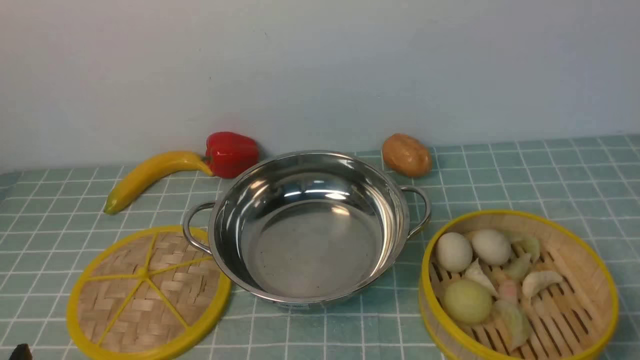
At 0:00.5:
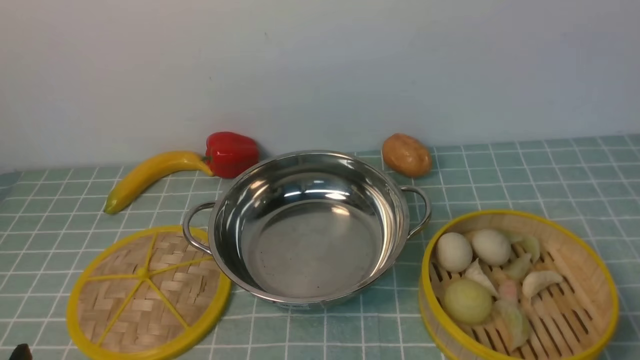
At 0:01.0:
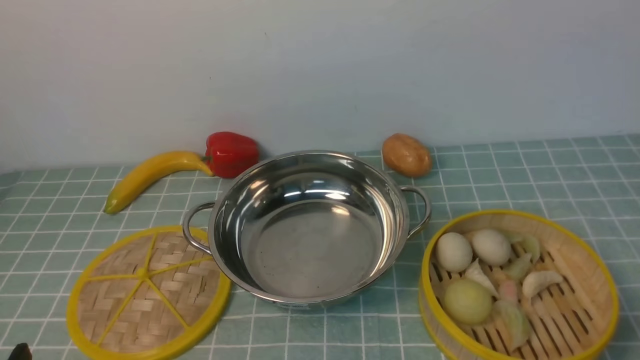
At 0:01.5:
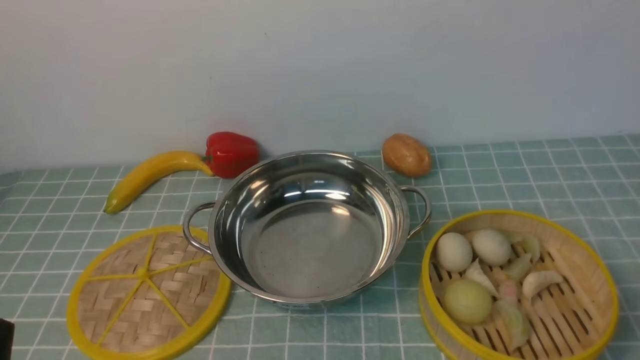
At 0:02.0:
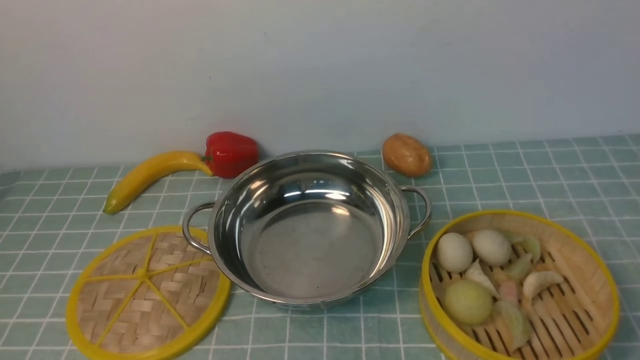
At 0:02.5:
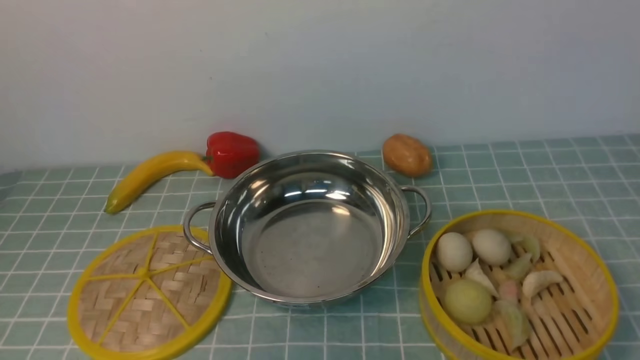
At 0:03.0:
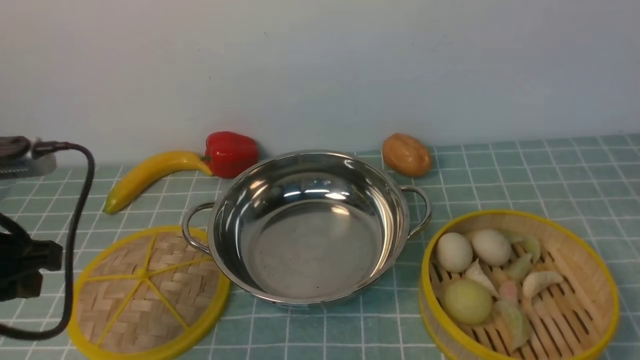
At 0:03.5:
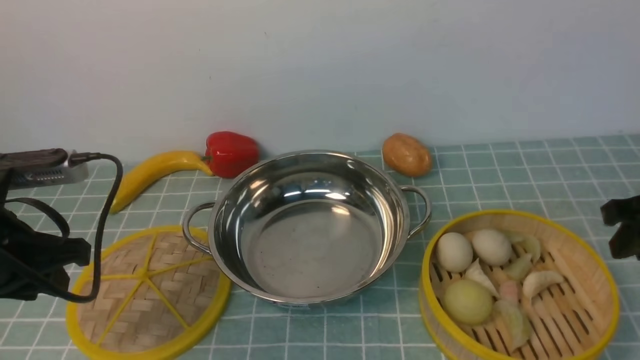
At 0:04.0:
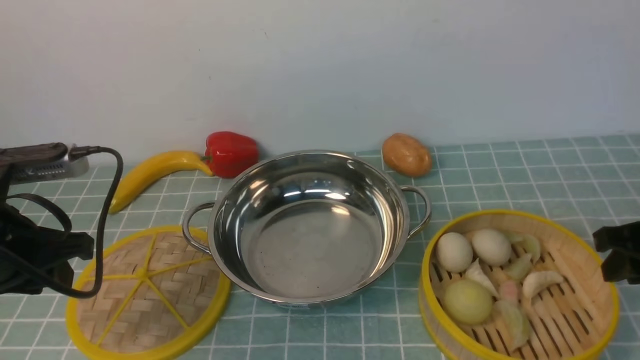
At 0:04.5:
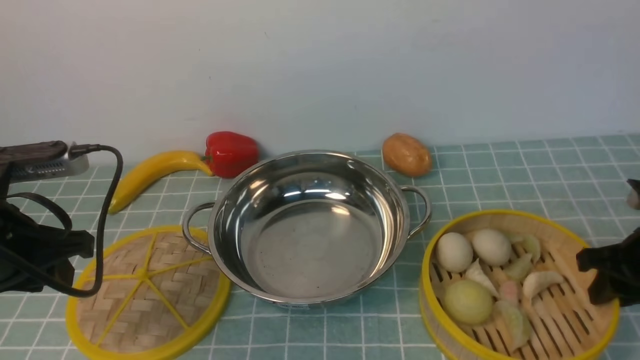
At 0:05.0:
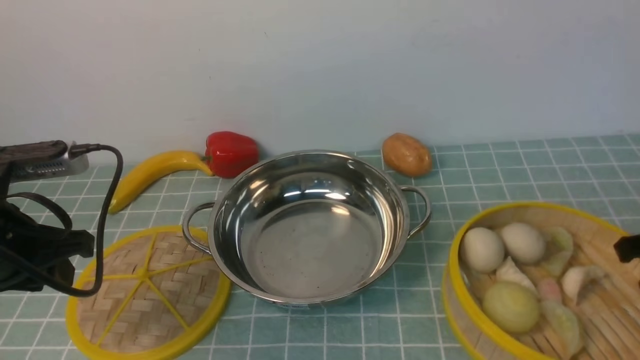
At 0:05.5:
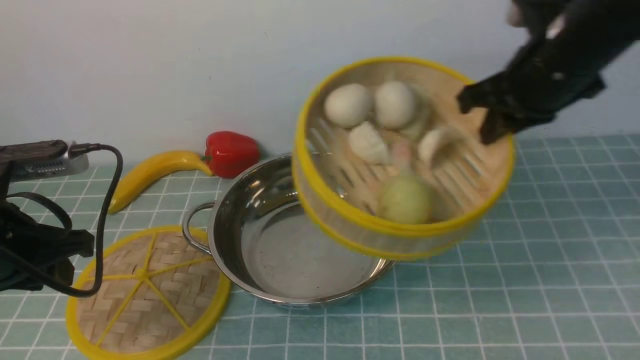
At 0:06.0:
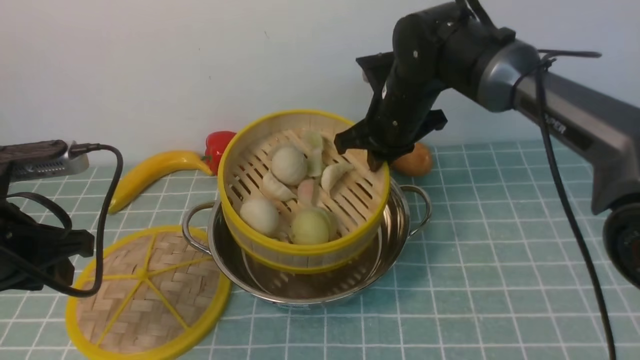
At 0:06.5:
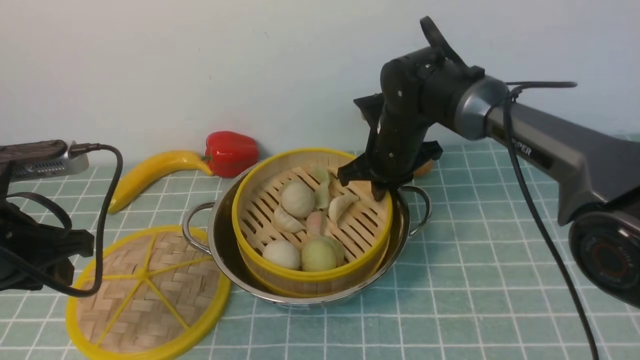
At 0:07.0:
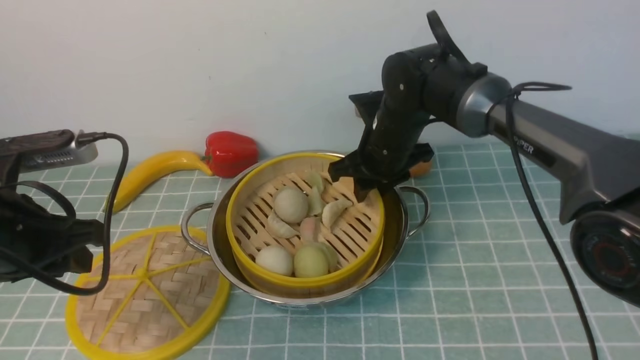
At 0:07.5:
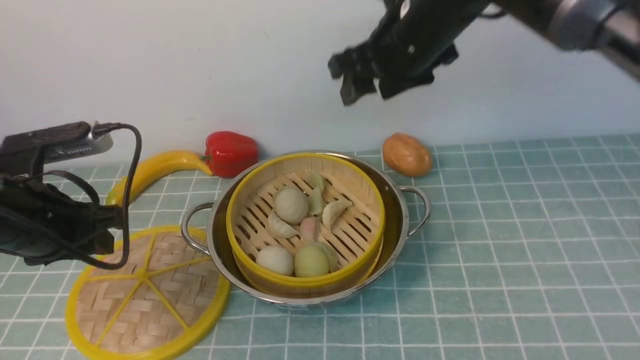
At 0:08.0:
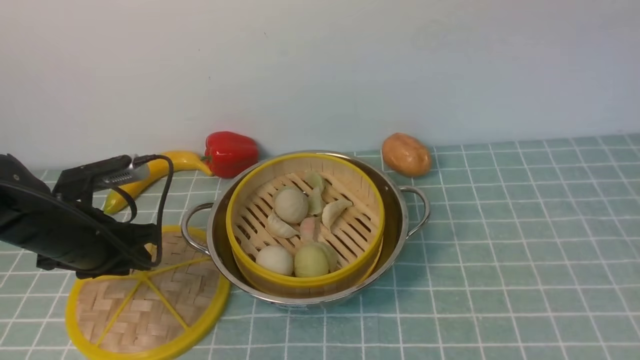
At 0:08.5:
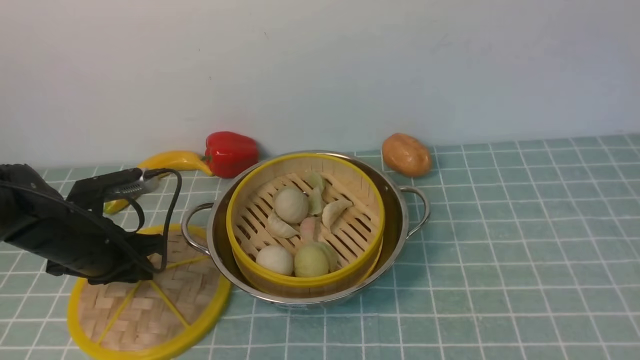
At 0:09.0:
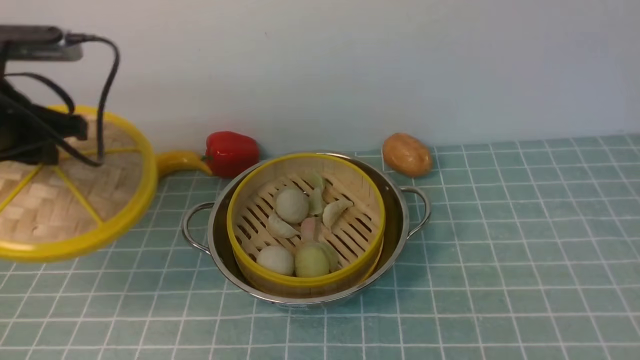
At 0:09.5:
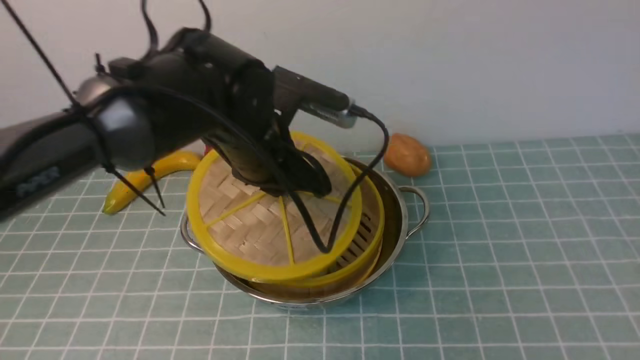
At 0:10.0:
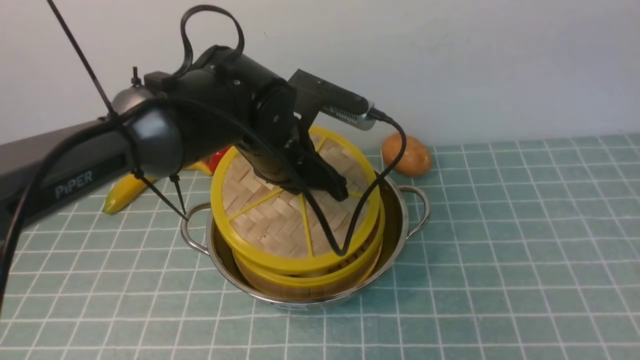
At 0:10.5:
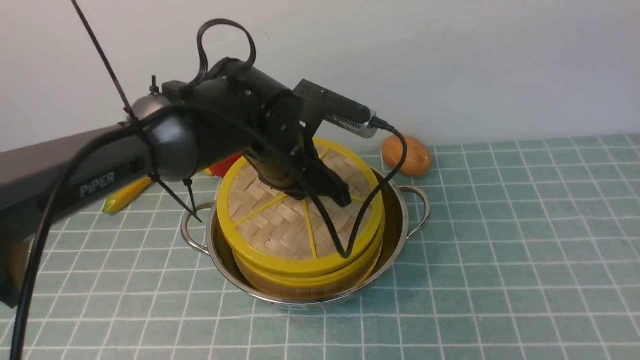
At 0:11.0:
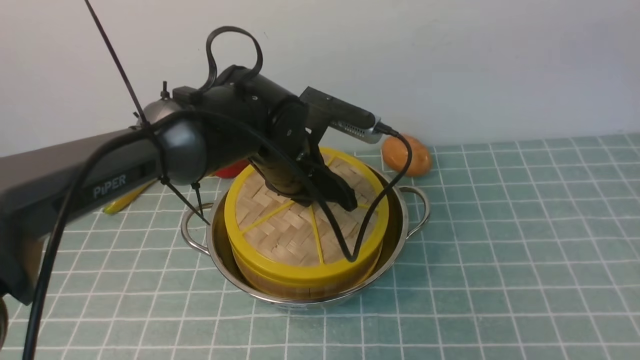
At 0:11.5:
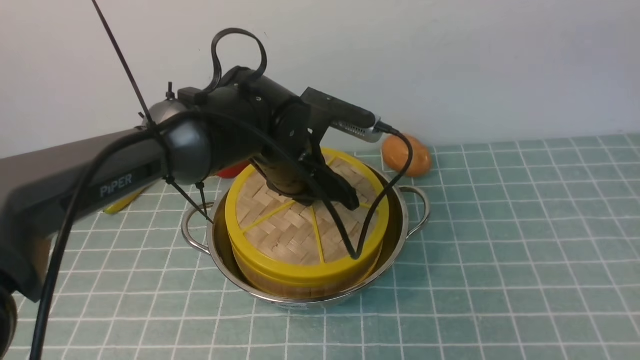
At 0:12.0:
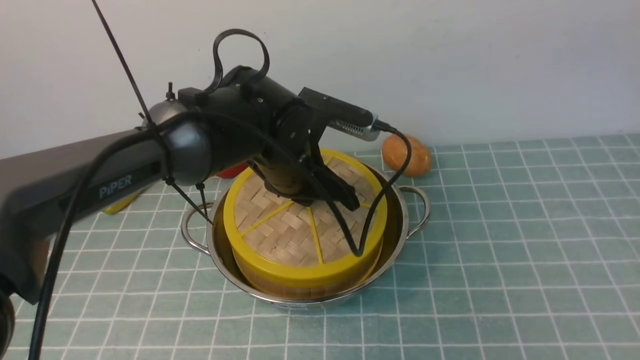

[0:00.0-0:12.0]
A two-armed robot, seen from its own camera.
Task of the whole recording: place the steamer in the pot on the blue tablecloth, and put the lid on the steamer.
Step, 0:00.0 to 0:05.0: use the right arm to lift the steamer closest to it.
Step, 0:05.5 to 0:07.0: use the right arm to put the steamer into the iron steamer pot in the middle.
Step, 0:07.5 to 0:08.5: use the left arm to lift the lid of the steamer.
0:02.0 to 0:04.0: Both grippers move forward, some 20 cm.
0:04.0 to 0:06.0: The right gripper moves to the left and forward, about 30 cm, and closes up.
0:06.0 to 0:08.0: The right gripper goes about 40 cm upward and backward, and opens its fingers. Meanwhile the left gripper moves downward and forward, some 10 cm.
0:08.0 to 0:10.0: The right gripper travels backward by approximately 5 cm; the left gripper is displaced to the right by roughly 20 cm.
0:10.0 to 0:12.0: There are only small adjustments of the grippers.

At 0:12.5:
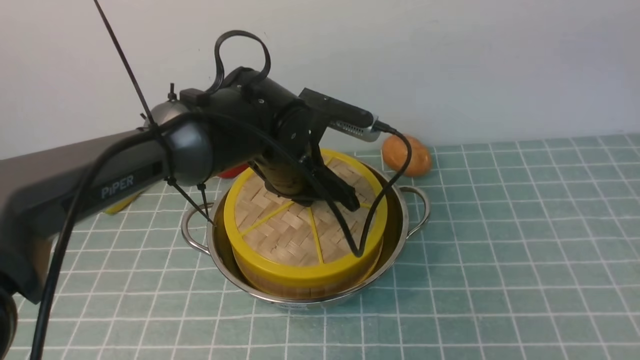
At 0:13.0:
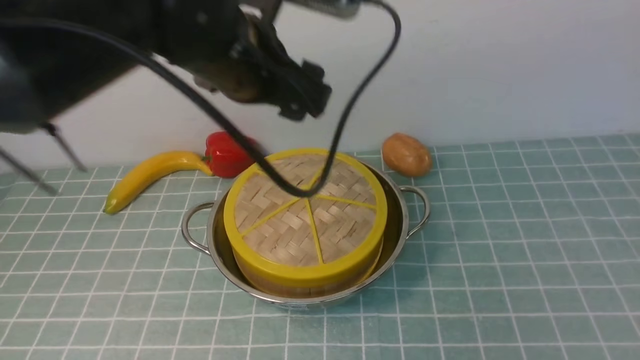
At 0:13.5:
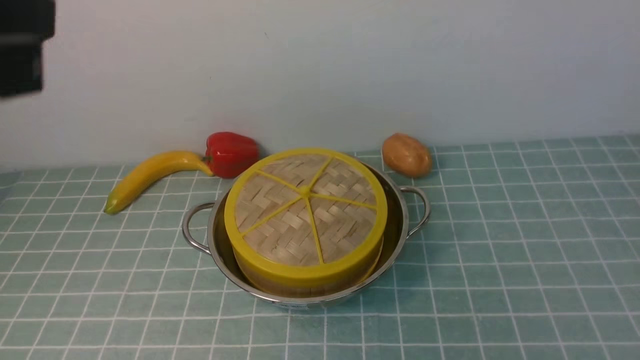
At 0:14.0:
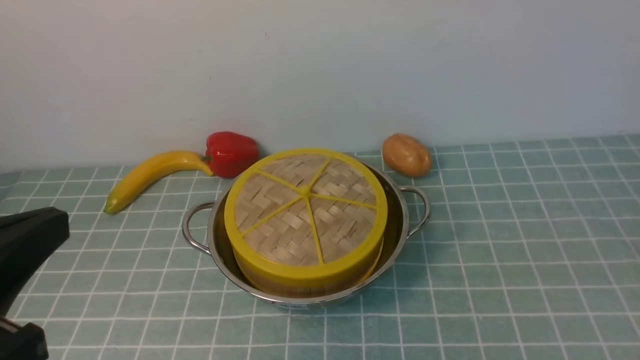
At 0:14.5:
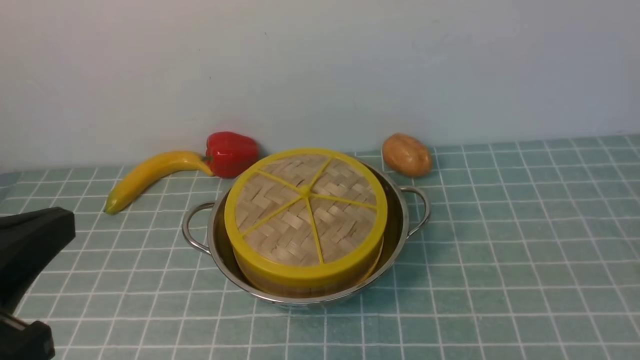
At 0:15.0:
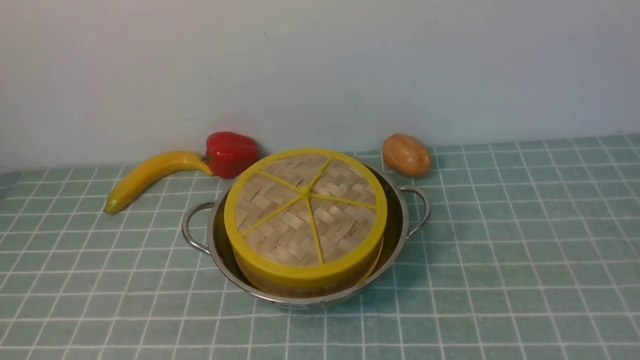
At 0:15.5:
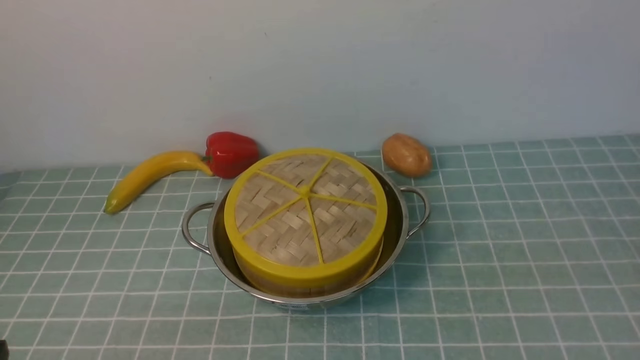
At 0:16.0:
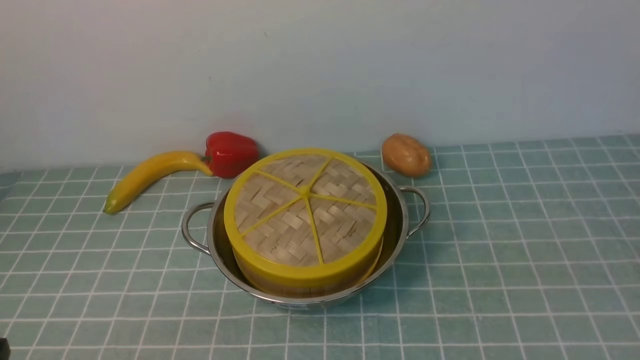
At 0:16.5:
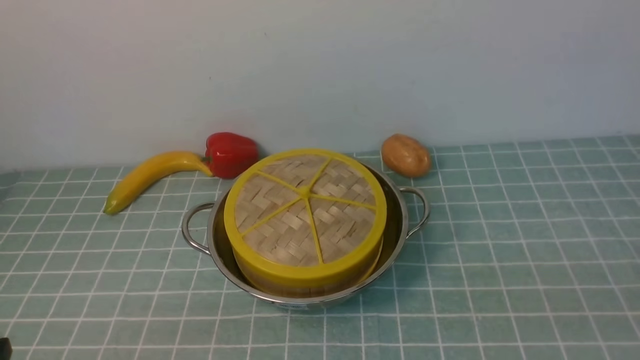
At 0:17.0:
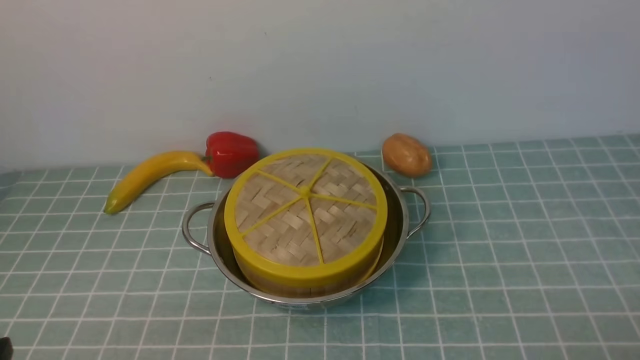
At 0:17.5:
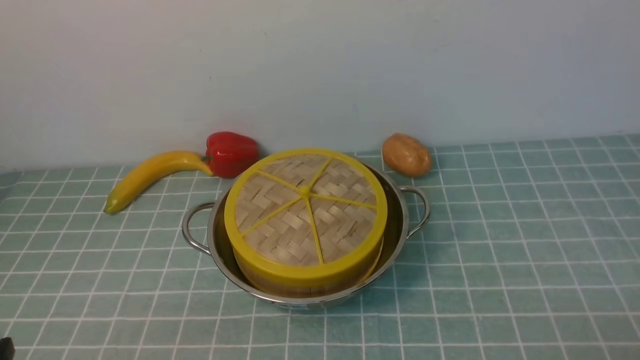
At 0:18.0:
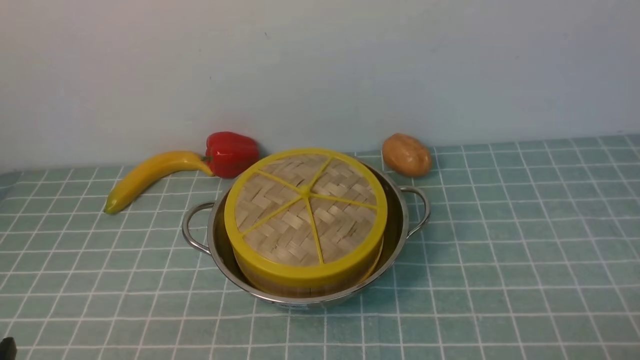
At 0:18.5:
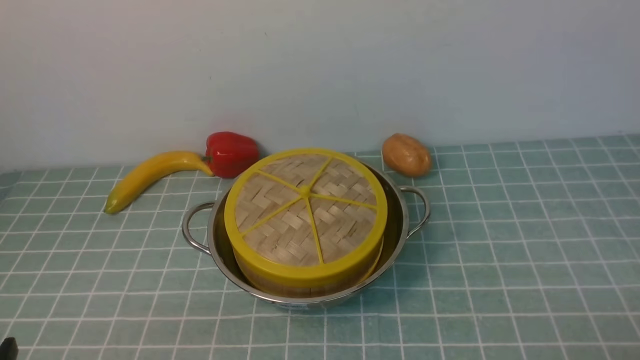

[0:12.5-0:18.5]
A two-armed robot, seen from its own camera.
Task of the whole recording: place the steamer in the pot on the blue tablecloth, and put the lid on the steamer.
0:12.5 to 0:14.5: The right gripper shifts some 25 cm downward and backward, and closes up. The left gripper moves backward, to the left and upward, about 35 cm, and closes up.
0:14.5 to 0:16.5: The left gripper travels downward by roughly 15 cm.

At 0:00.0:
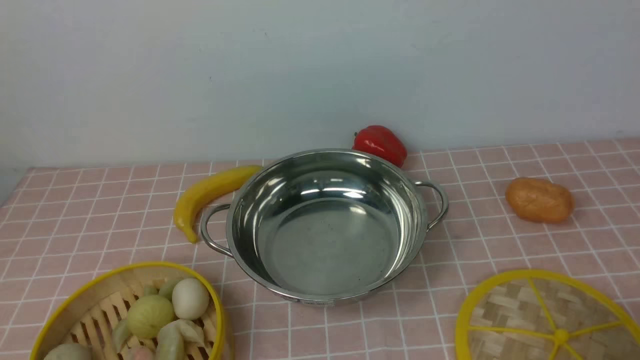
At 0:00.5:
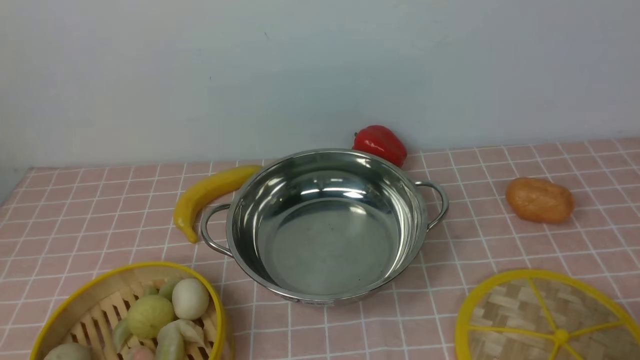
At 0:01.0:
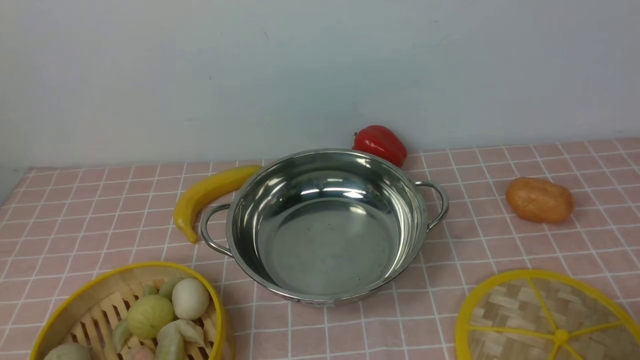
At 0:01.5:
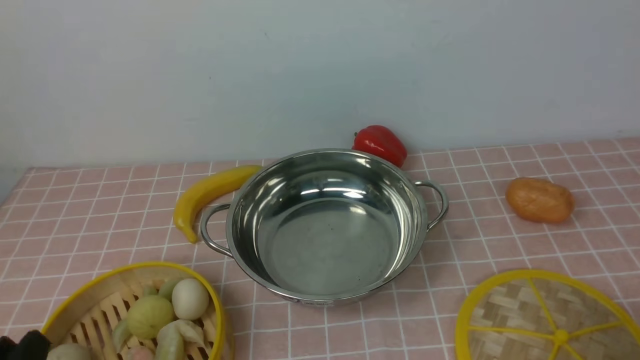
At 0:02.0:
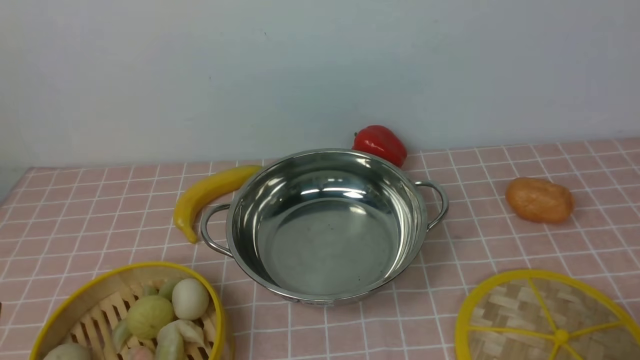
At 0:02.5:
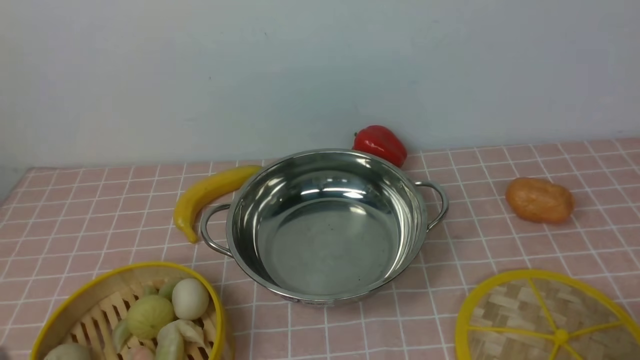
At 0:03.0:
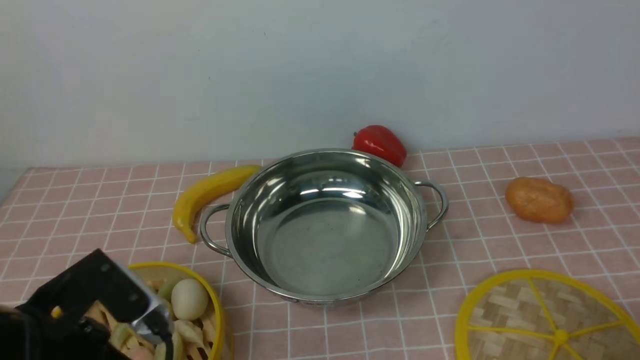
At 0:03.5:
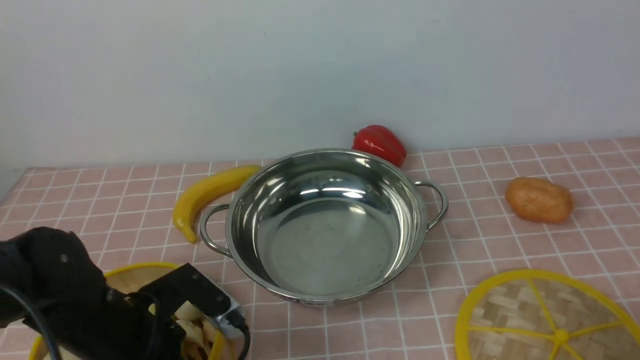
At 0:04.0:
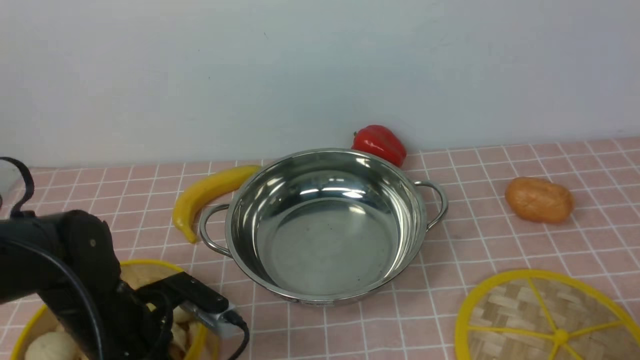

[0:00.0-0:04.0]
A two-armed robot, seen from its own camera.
Task of the whole recording: place the steamer in the pot on the pink tablecloth, and put the lid on the steamer.
0:02.0 to 0:04.0: The left gripper travels forward by approximately 15 cm, and closes up.
